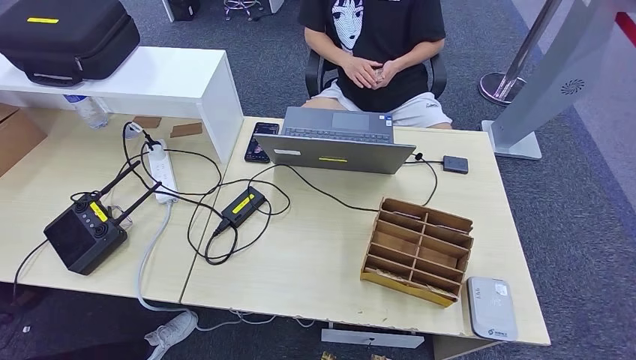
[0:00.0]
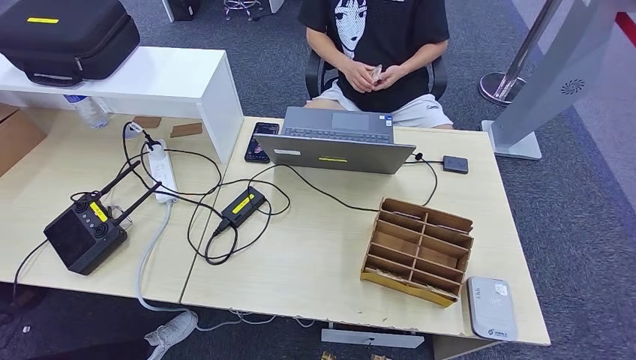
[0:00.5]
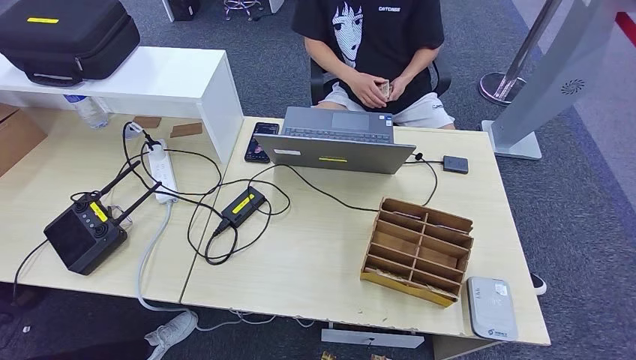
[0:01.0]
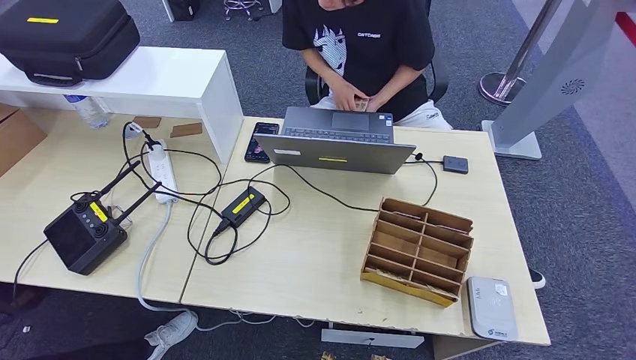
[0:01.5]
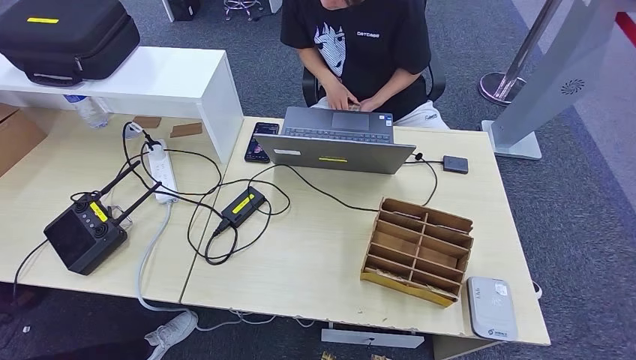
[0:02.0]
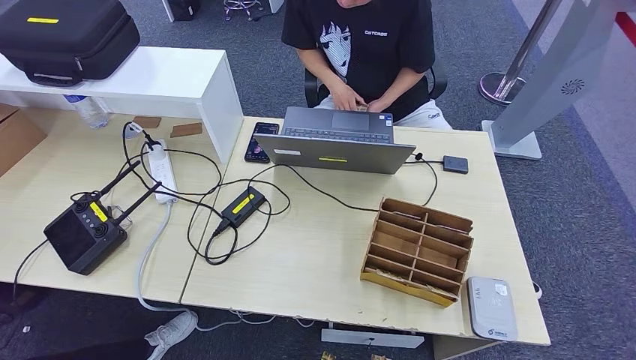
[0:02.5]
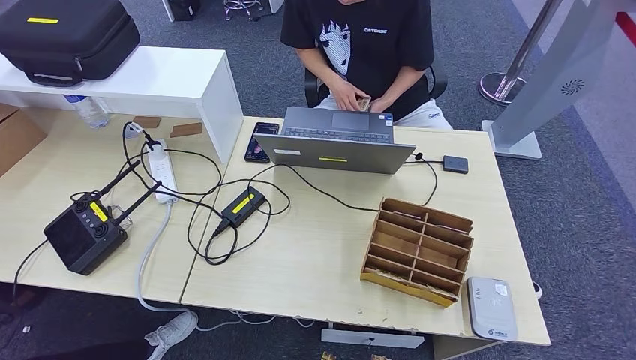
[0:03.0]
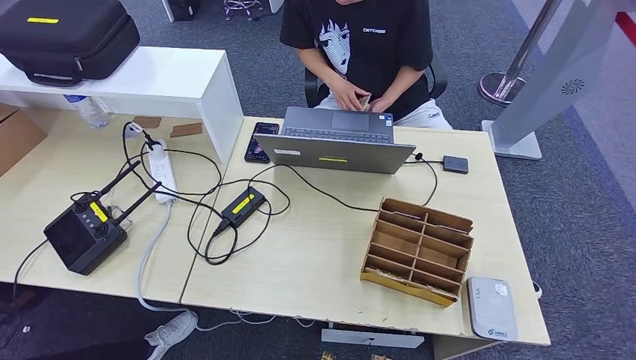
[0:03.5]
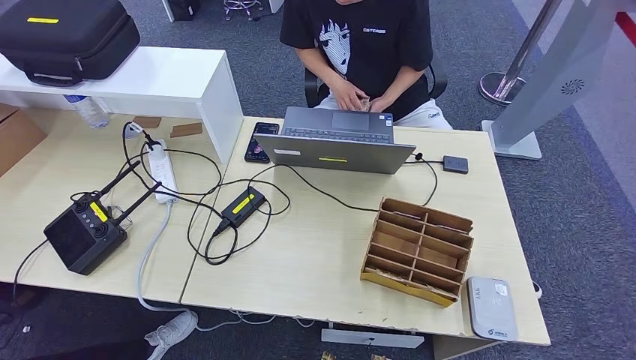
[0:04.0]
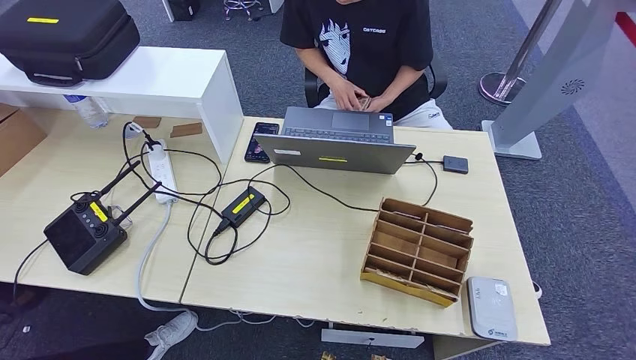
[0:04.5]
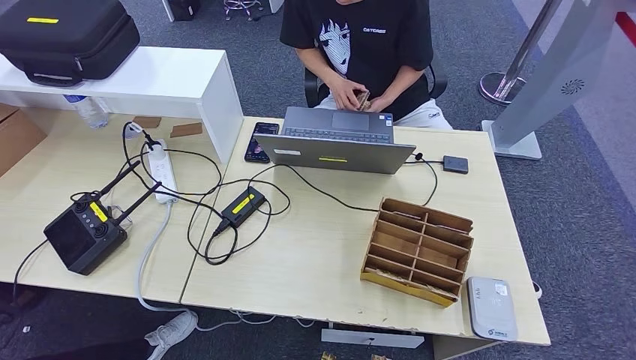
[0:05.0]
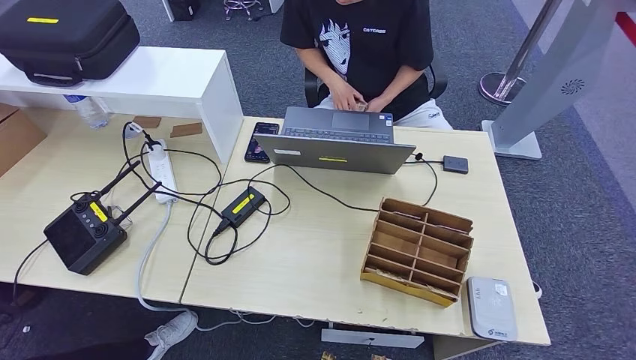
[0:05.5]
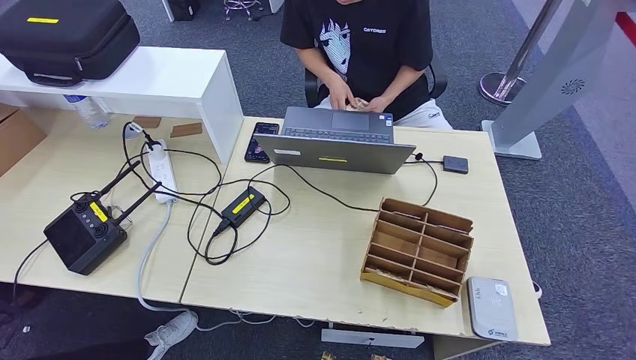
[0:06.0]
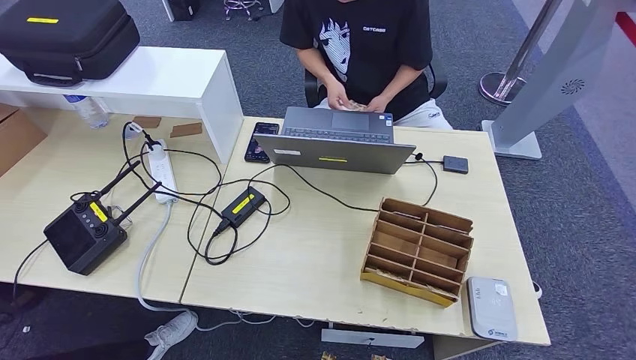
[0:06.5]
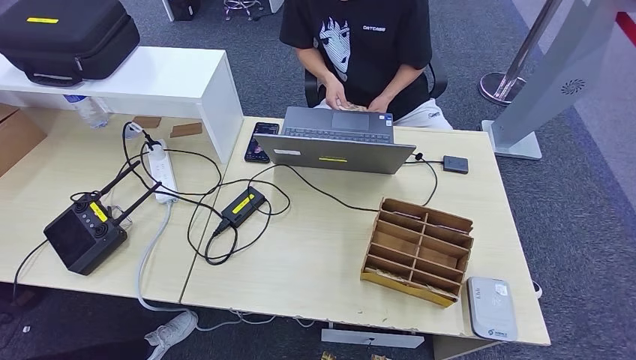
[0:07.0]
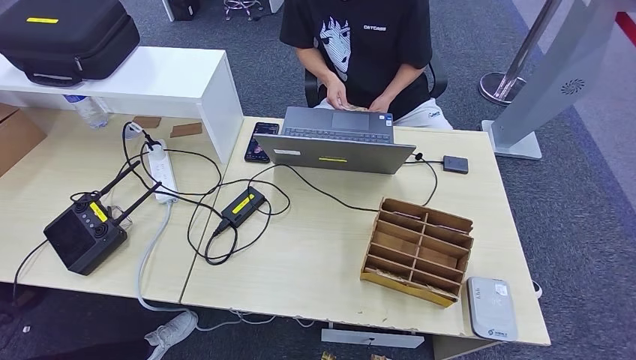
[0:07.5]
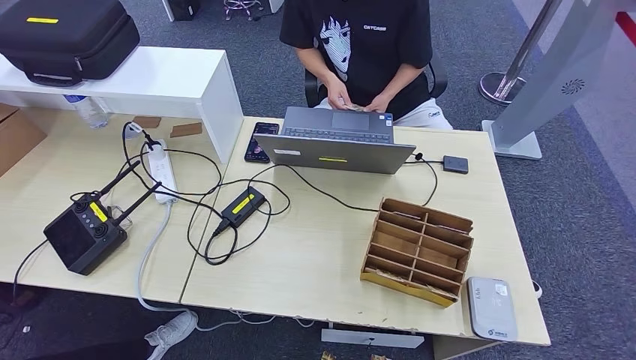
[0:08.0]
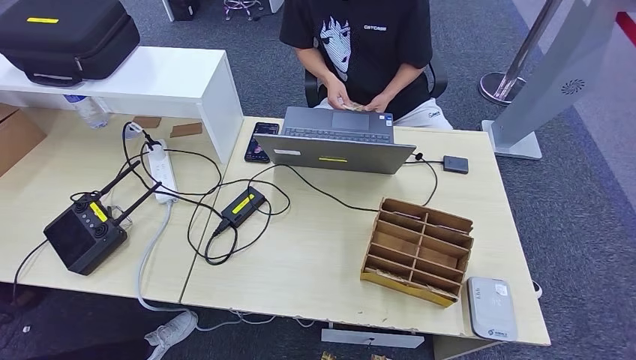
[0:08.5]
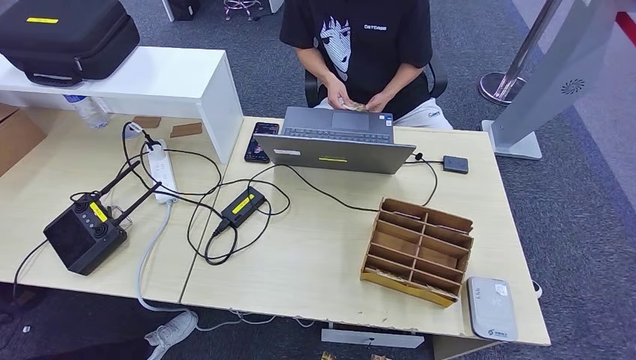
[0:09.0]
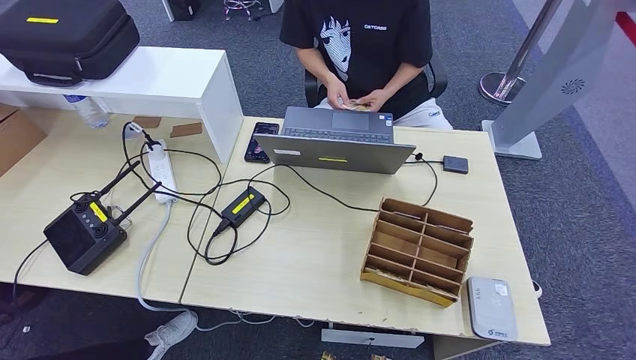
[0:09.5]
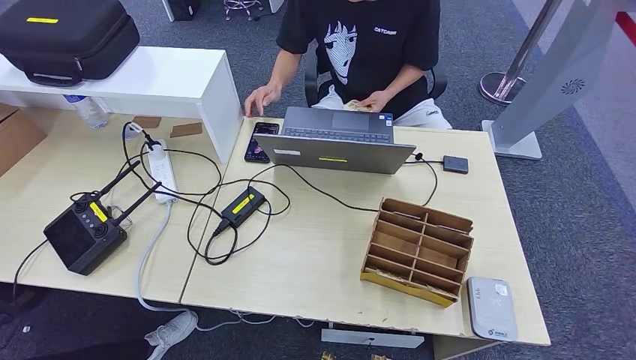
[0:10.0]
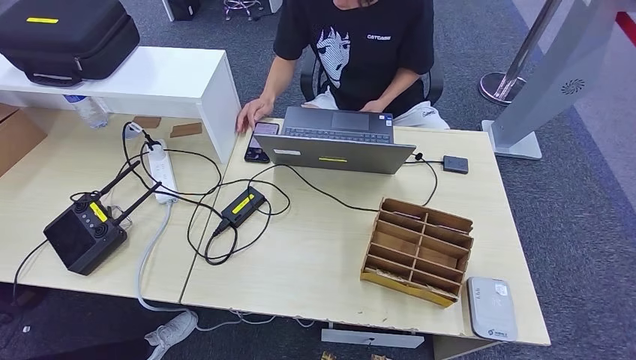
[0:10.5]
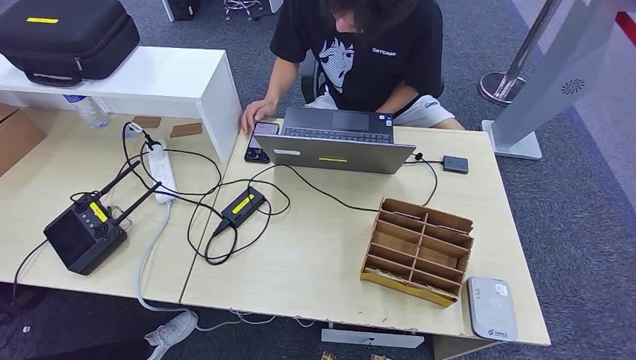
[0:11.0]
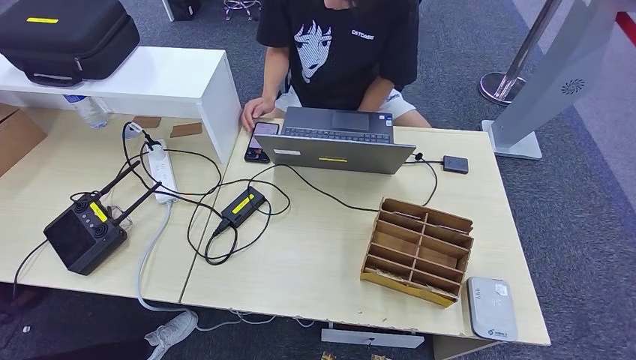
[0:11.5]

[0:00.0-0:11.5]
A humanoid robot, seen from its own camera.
Step, 0:00.0 to 0:11.0: Hand the room key to the person.
0:00.0 to 0:11.5: Both hands stay put.
